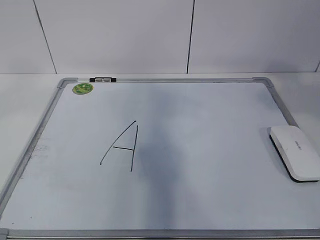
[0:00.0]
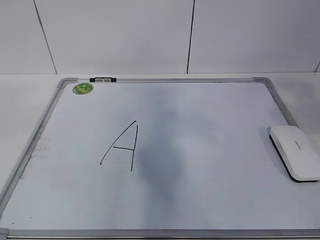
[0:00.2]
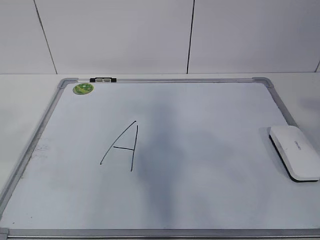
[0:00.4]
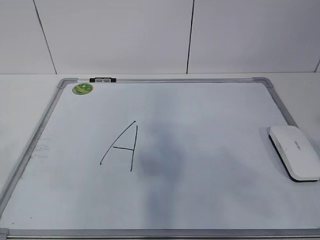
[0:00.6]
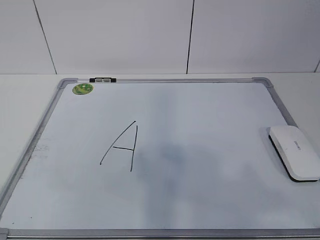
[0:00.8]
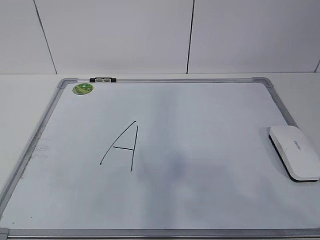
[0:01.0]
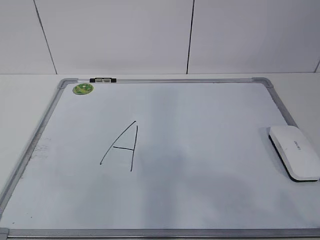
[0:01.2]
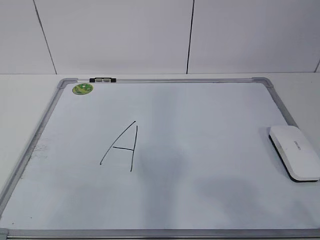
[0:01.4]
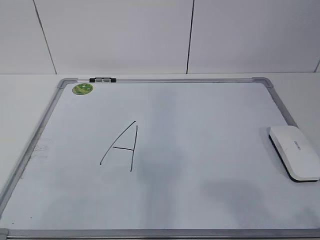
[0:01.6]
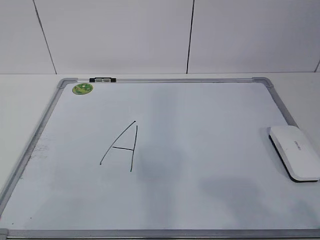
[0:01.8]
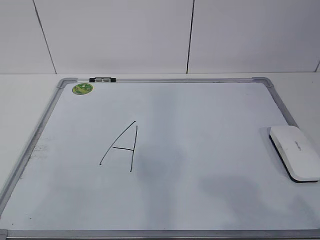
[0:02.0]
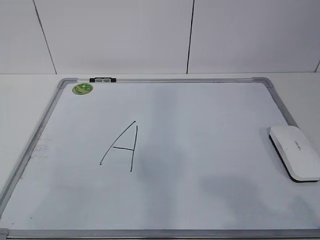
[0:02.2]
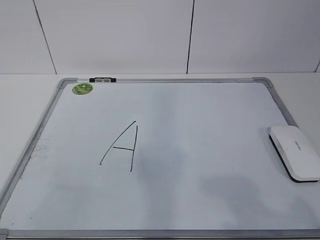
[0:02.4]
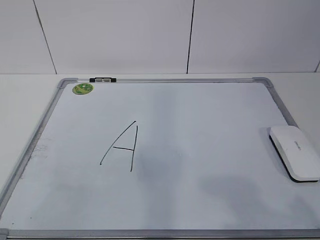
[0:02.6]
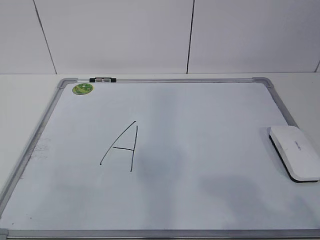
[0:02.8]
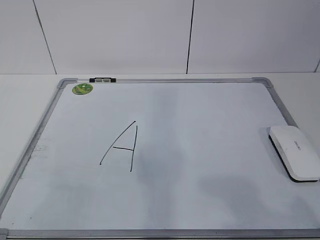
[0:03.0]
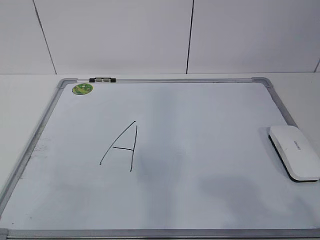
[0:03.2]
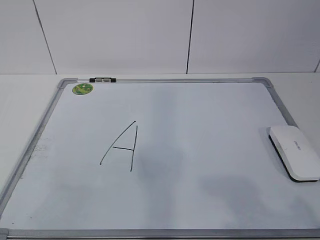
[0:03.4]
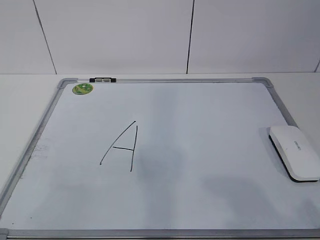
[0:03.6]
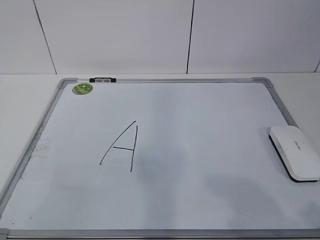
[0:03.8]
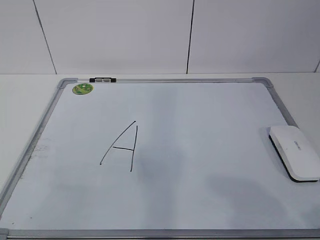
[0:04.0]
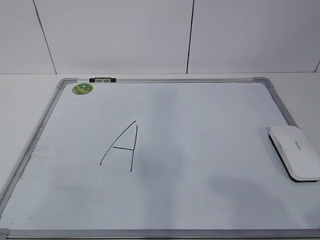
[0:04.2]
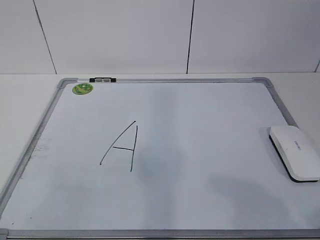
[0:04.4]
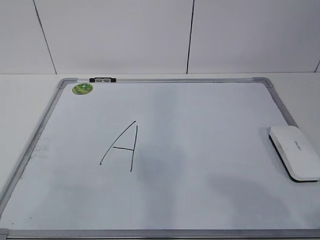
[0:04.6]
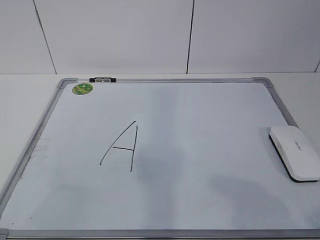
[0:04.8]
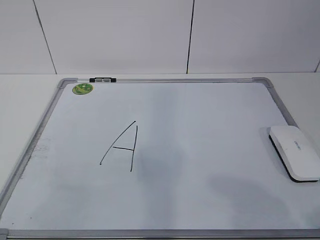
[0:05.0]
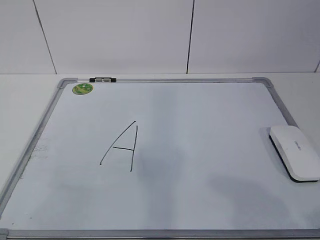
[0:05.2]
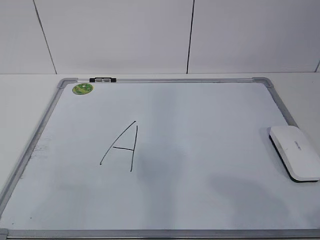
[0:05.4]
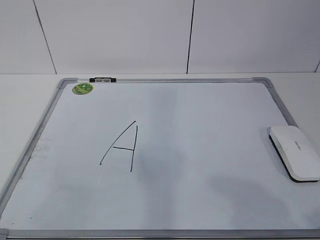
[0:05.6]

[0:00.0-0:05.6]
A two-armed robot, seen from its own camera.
Task of the whole recording: pick up the eraser on the blackboard and erase the letter "a".
0:00.0 to 0:01.4: The right gripper travels backward and downward by some 20 cm, while the left gripper goes about 20 cm downward and backward.
0:04.2 to 0:05.6: Neither gripper changes place.

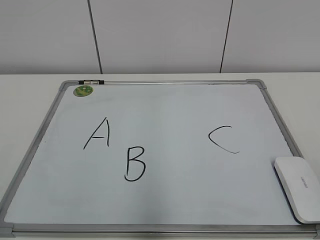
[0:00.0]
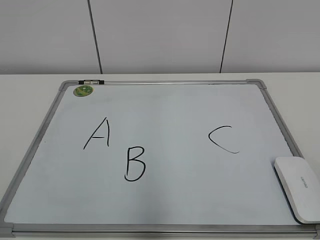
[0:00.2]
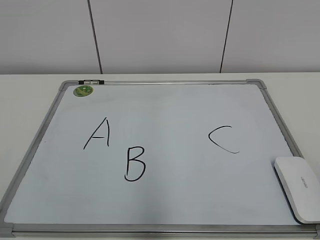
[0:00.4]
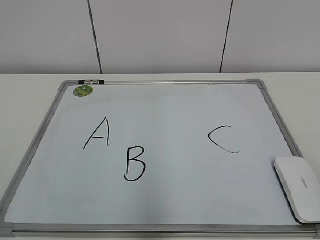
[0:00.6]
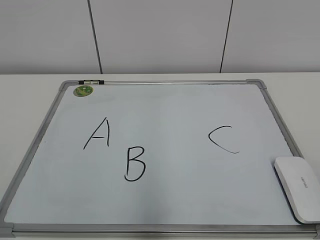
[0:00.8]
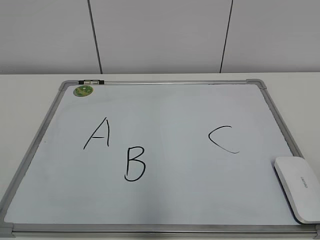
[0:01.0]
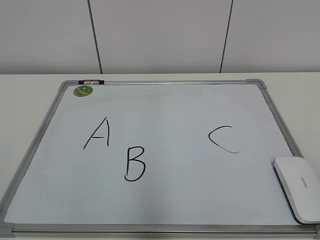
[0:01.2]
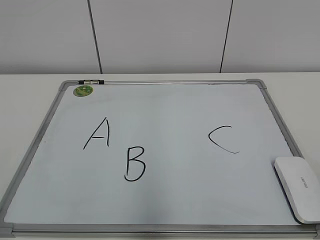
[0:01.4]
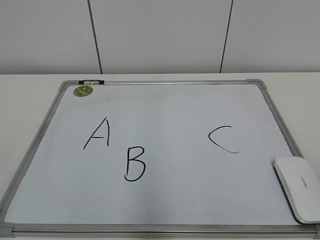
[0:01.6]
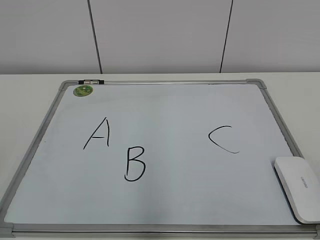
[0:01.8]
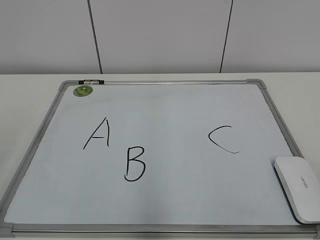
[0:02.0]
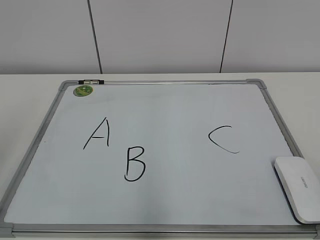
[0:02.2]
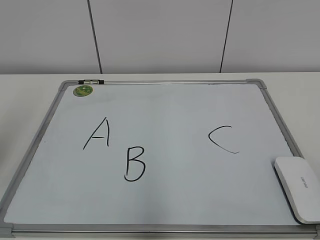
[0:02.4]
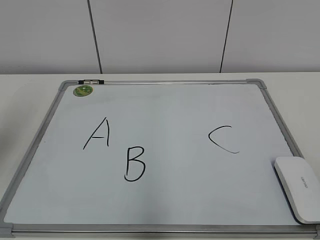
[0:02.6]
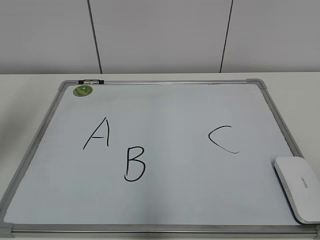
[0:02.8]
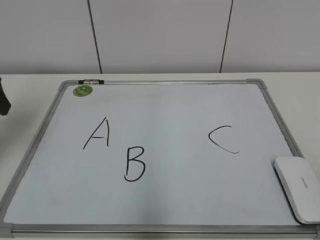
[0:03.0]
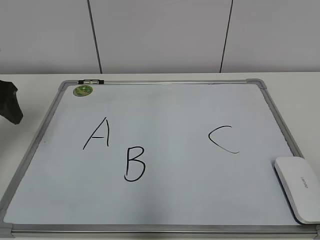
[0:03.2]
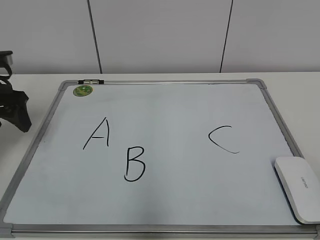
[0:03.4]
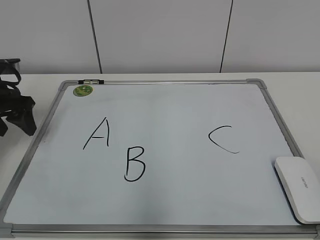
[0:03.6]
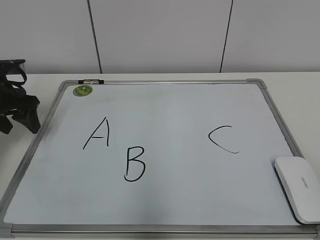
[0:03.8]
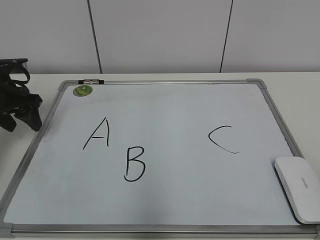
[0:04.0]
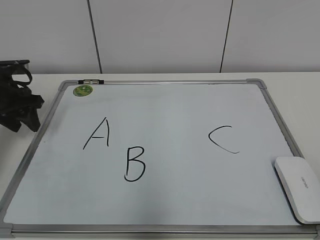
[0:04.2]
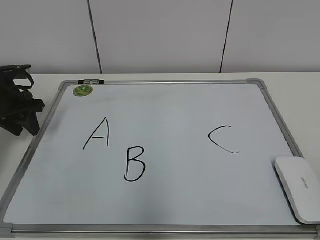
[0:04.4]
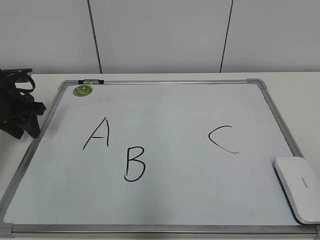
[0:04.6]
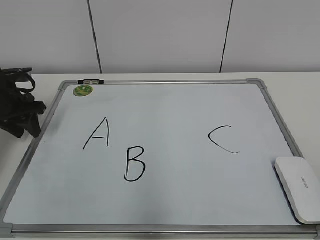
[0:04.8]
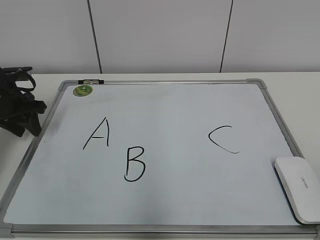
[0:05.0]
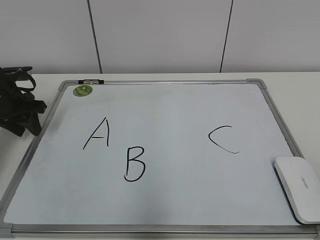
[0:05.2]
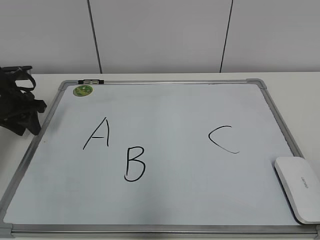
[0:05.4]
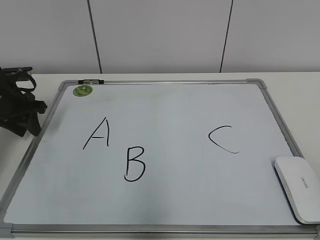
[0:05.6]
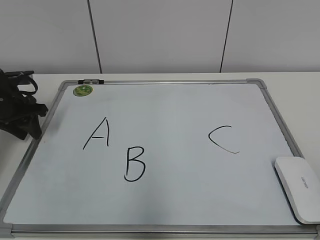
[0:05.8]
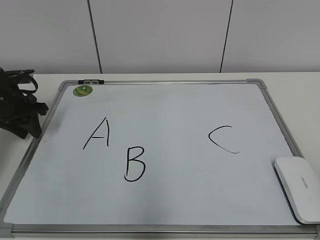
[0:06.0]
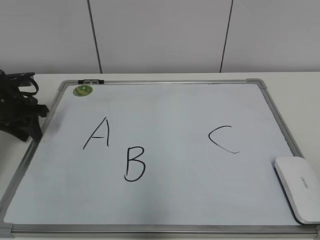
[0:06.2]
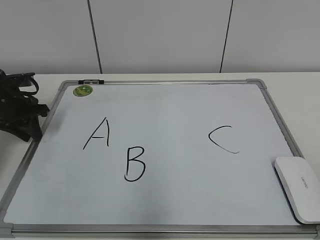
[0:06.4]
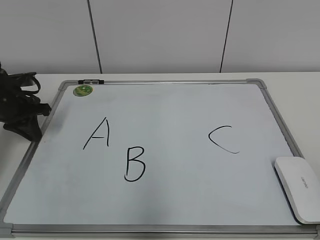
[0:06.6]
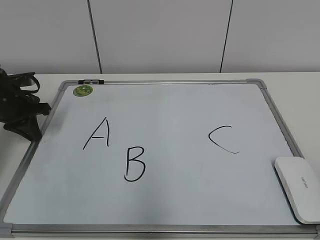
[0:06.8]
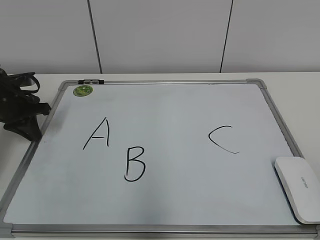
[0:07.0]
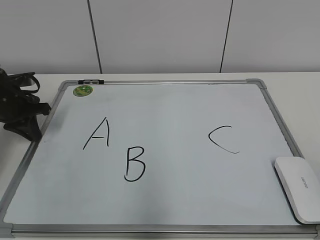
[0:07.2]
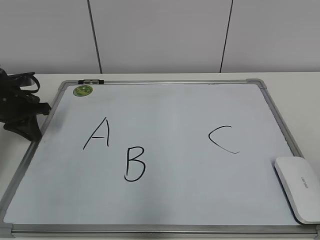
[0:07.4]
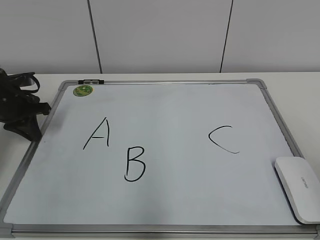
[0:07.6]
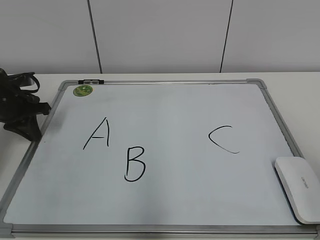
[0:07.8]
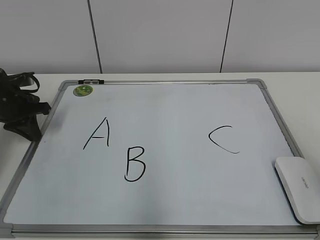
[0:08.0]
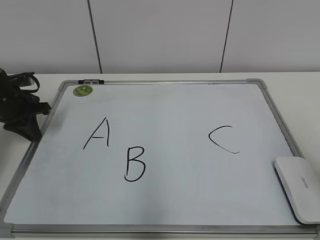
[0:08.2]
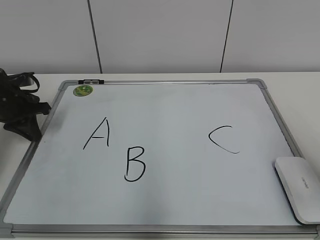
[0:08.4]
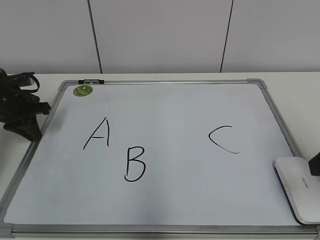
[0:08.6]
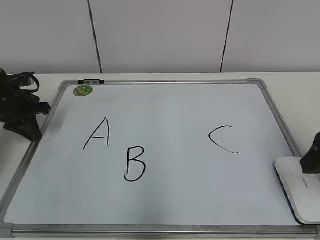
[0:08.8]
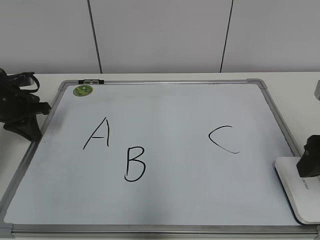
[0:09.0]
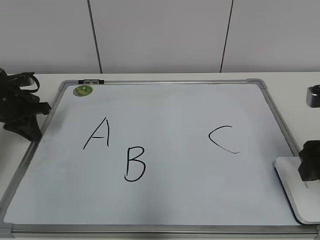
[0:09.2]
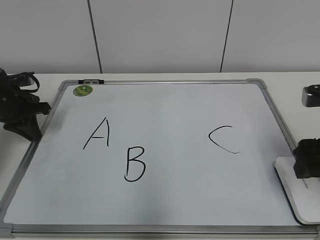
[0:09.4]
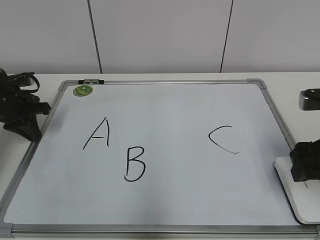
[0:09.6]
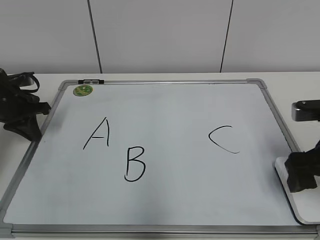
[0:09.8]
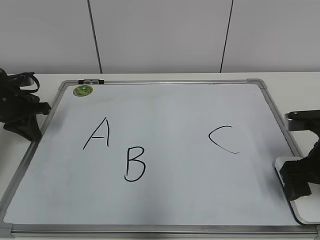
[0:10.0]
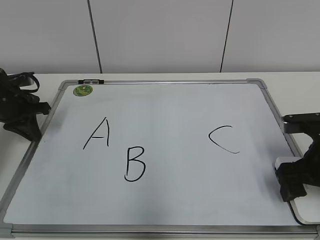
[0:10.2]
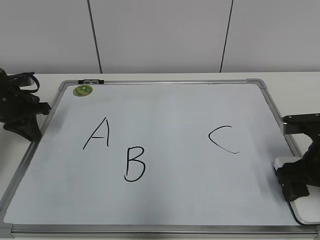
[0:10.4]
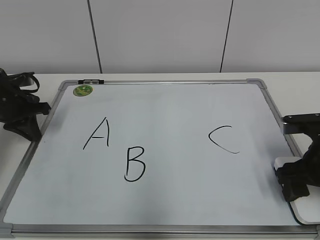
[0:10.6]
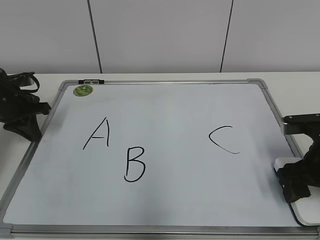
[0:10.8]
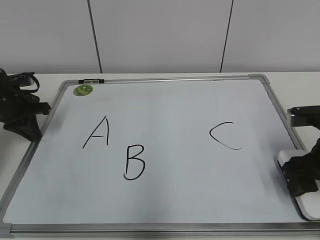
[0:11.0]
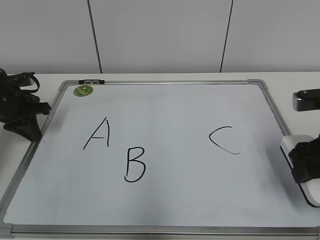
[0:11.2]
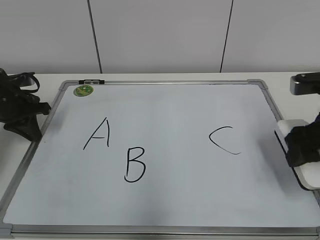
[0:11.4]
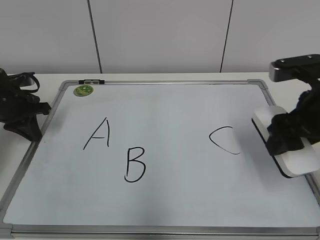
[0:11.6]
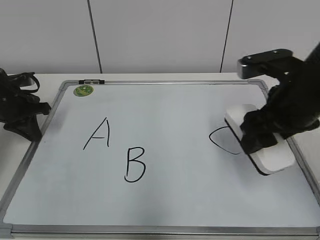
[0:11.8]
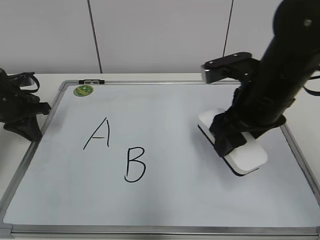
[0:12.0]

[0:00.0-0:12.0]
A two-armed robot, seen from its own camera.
Task of the whole recording: pick up the eraser on the blackboard and erase the letter "B".
Step, 0:00.0 to 0:07.6: Hold the drawing board steady with your left hand.
Step, 0:07.8 to 0:09.8: Grab the eraser with your right hand.
0:01.6 to 0:03.0: The left gripper goes roughly 30 cm forward.
0:03.0 to 0:04.4: The left gripper heads downward and forward, covering some 15 cm, and closes up.
0:04.4 to 0:06.0: The grippers move only a little.
0:06.0 to 0:07.6: The left gripper closes its fingers.
0:07.6 to 0:09.0: The right gripper travels forward and downward by roughly 20 cm, and opens its fingers.
0:09.0 to 0:10.4: The right gripper travels downward by approximately 5 cm.
0:10.4 to 0:12.0: The right gripper is displaced to the left and upward by about 15 cm.

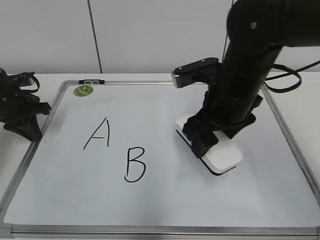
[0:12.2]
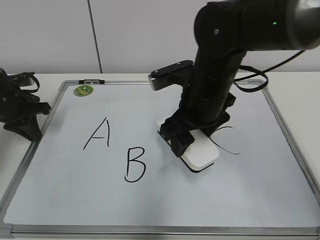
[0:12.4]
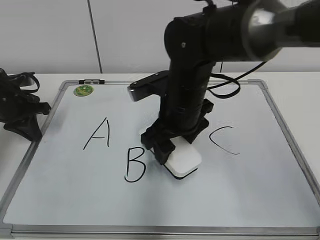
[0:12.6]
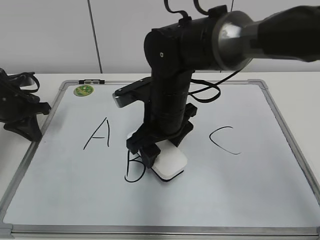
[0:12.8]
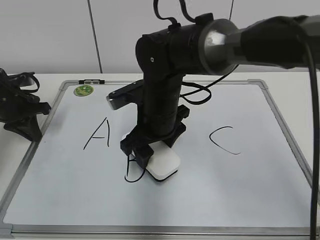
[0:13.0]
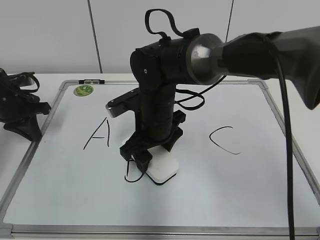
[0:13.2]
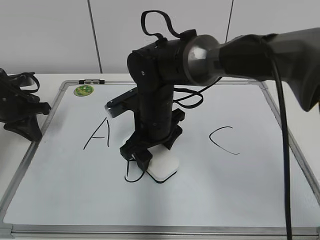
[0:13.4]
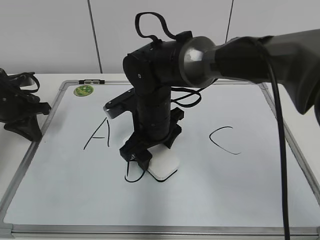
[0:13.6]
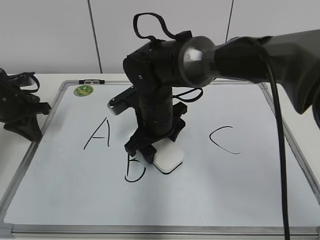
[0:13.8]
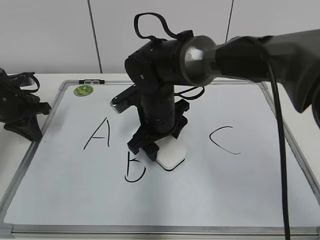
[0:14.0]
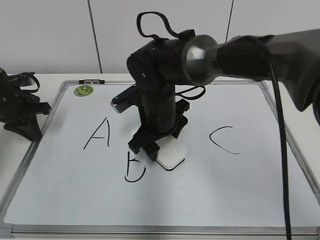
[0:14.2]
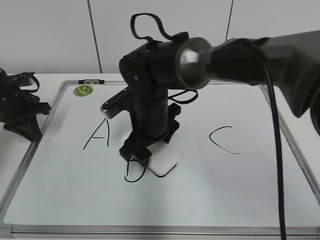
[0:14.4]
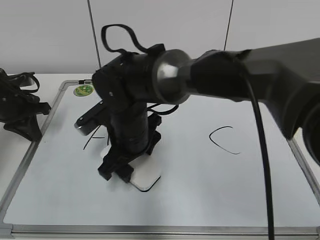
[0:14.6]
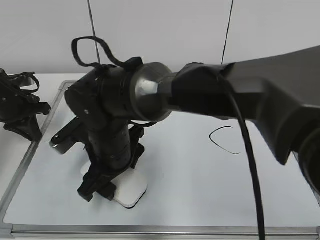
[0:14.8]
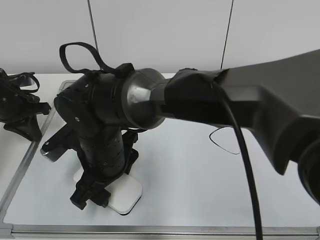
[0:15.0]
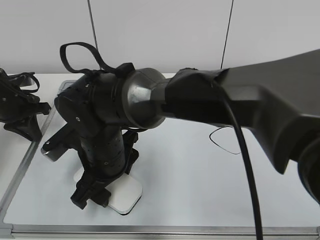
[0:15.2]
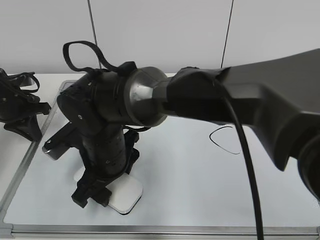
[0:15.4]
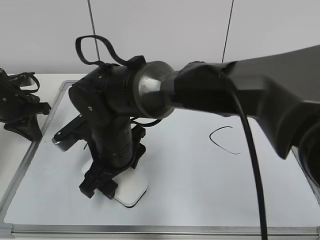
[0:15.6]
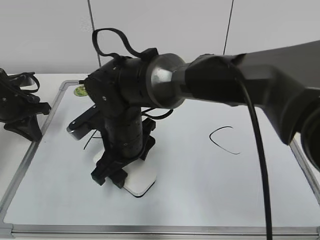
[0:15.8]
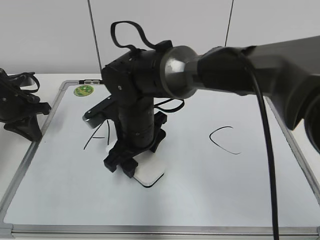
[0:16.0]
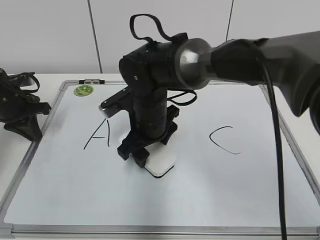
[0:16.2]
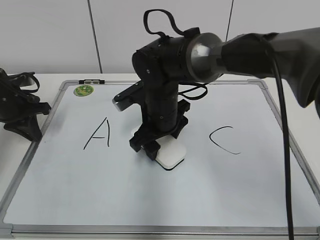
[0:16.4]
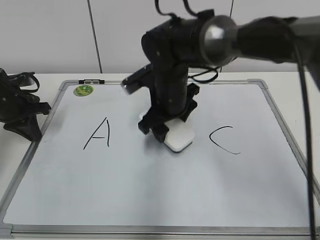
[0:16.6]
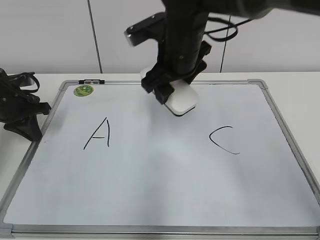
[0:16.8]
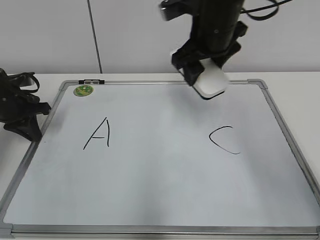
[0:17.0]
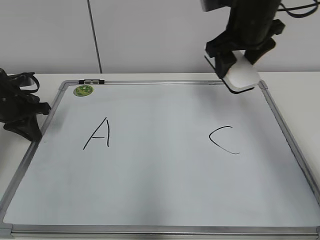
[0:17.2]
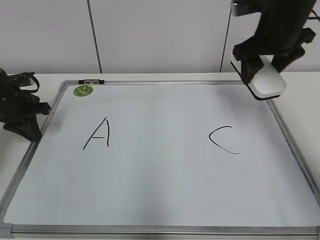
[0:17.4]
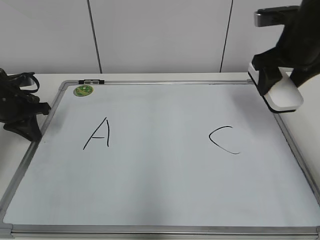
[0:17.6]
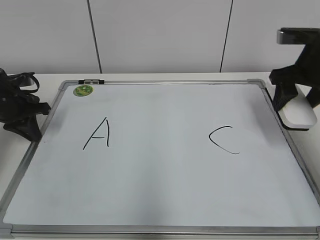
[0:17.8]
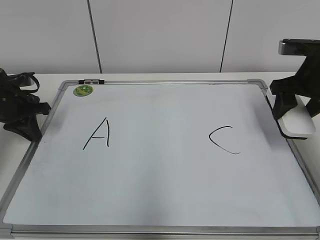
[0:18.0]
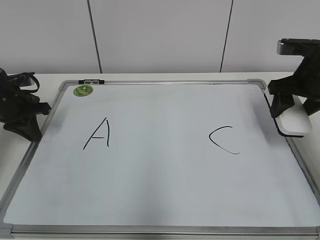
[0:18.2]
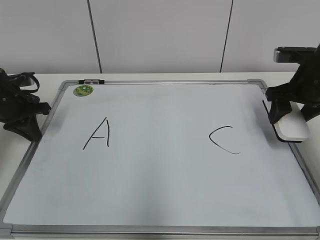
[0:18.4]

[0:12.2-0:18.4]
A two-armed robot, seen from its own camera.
Task of the whole recording: pick up the eraser on the blackboard and erase the letter "B".
Step, 0:12.2 to 0:16.2: Erase the letter B with your right hand.
0:12.2 to 0:13.8: The right gripper moves to the left, downward and forward, about 15 cm.
0:13.8 to 0:15.4: The right gripper is displaced to the left and backward by some 10 cm.
0:15.4 to 0:16.8: The right gripper is displaced to the right, upward and forward by approximately 20 cm.
0:16.8 to 0:18.4: The right gripper goes about 25 cm to the right.
